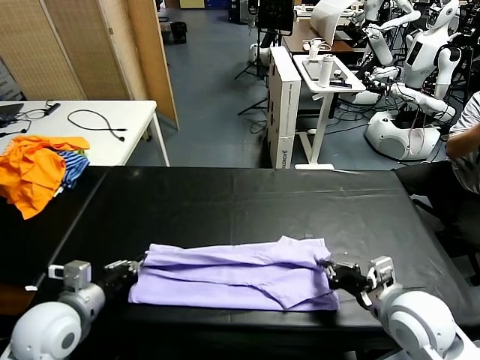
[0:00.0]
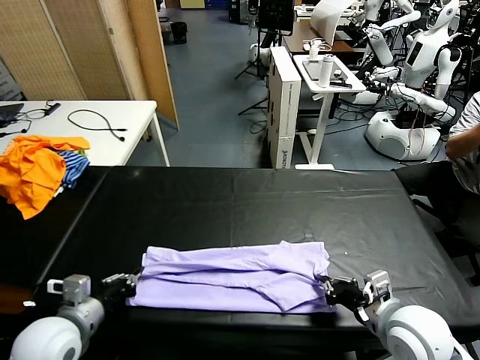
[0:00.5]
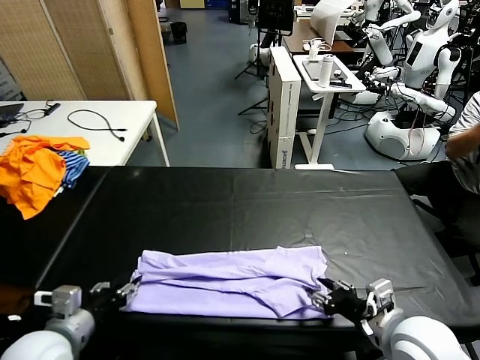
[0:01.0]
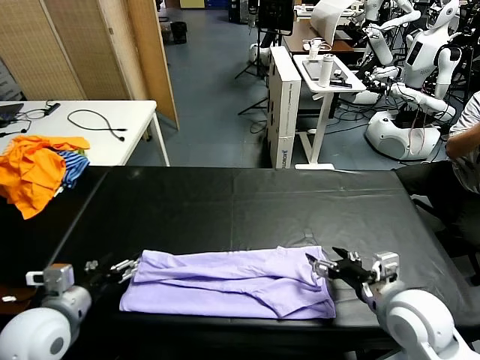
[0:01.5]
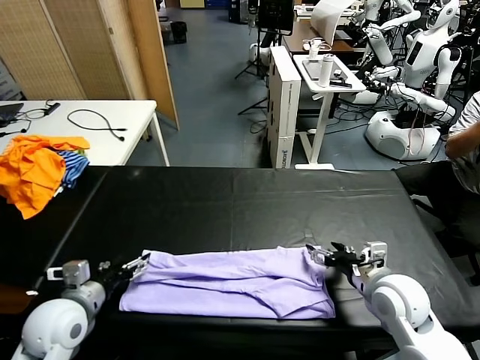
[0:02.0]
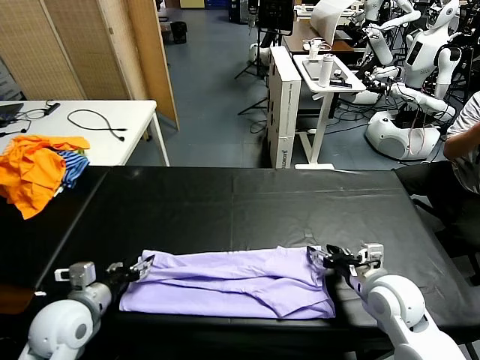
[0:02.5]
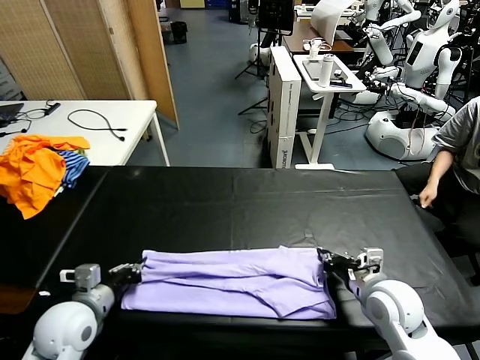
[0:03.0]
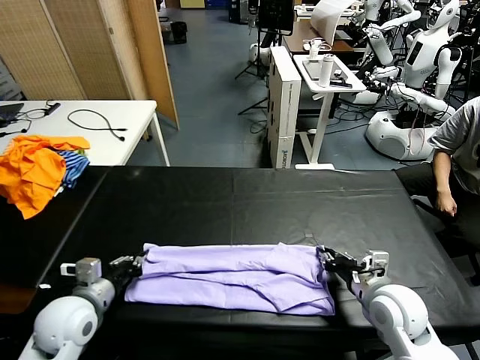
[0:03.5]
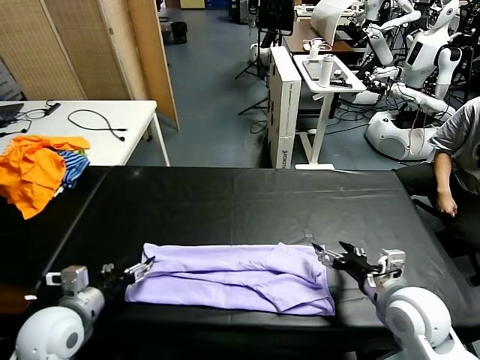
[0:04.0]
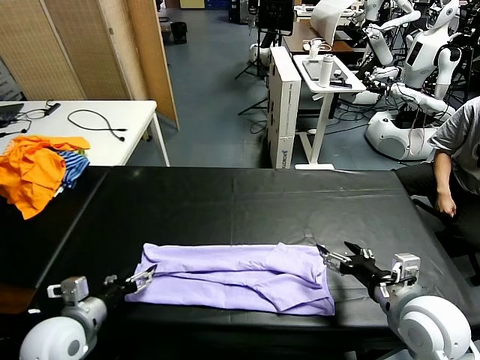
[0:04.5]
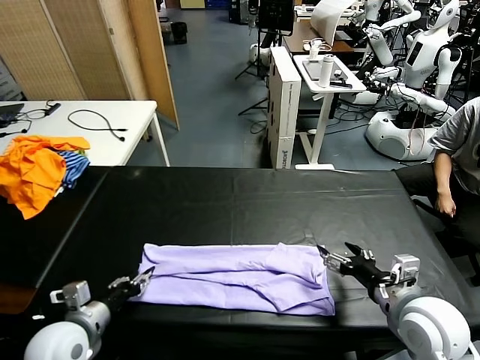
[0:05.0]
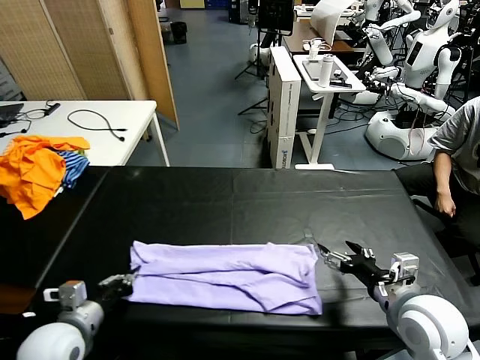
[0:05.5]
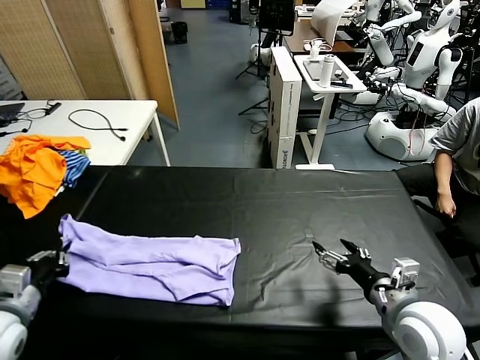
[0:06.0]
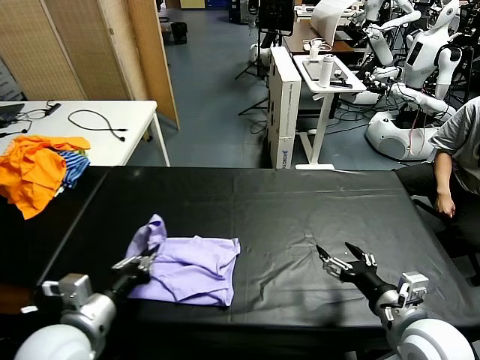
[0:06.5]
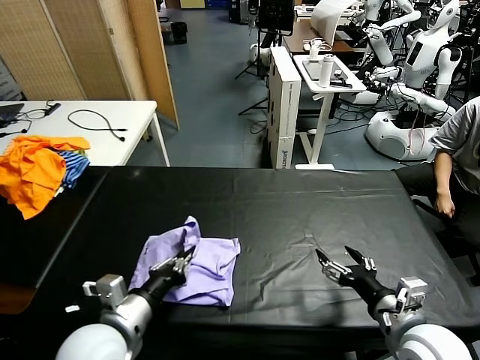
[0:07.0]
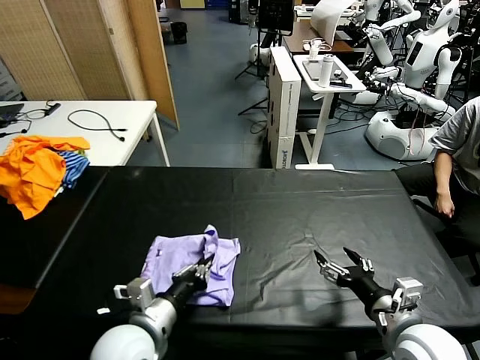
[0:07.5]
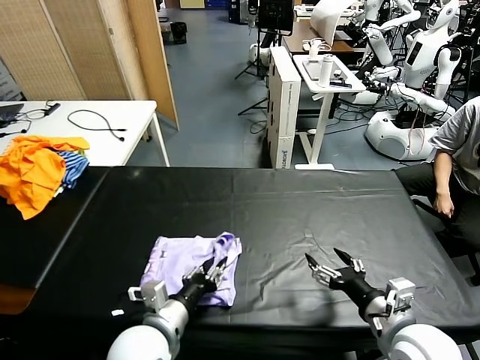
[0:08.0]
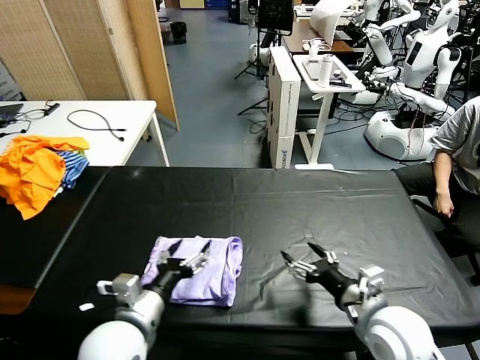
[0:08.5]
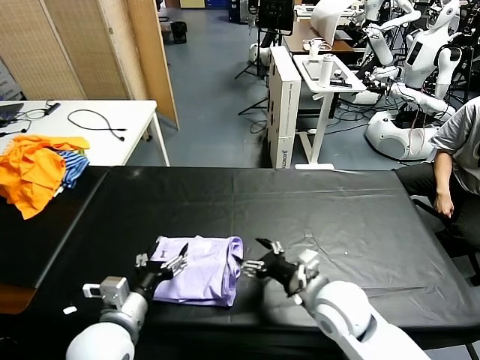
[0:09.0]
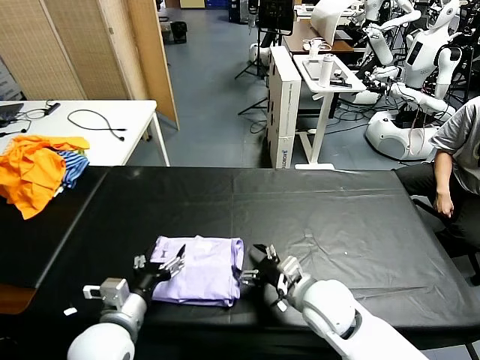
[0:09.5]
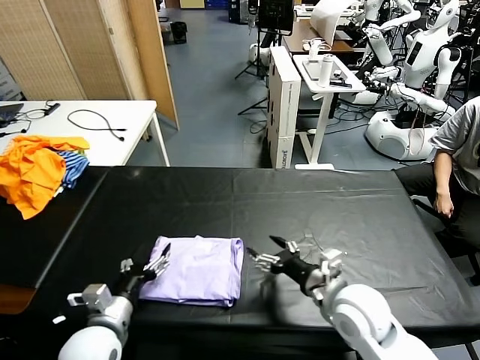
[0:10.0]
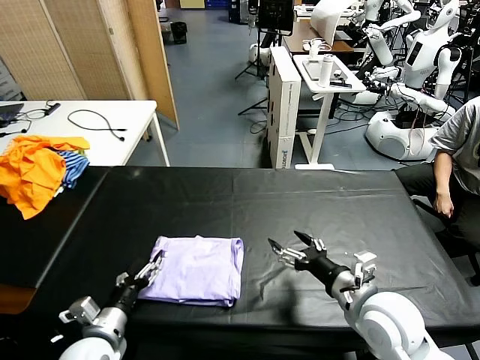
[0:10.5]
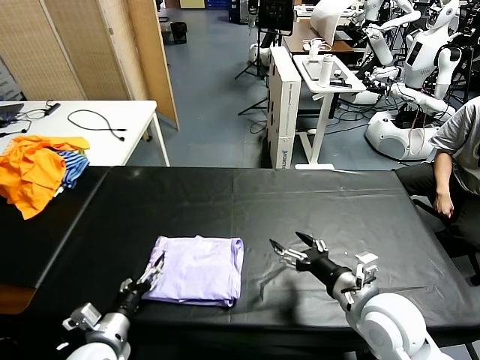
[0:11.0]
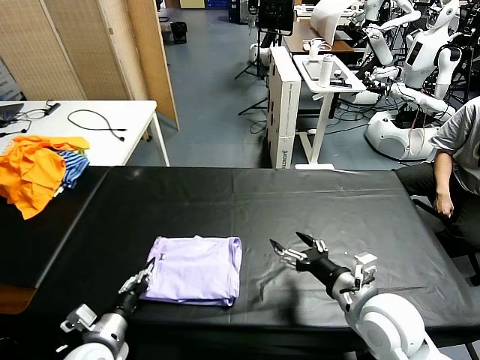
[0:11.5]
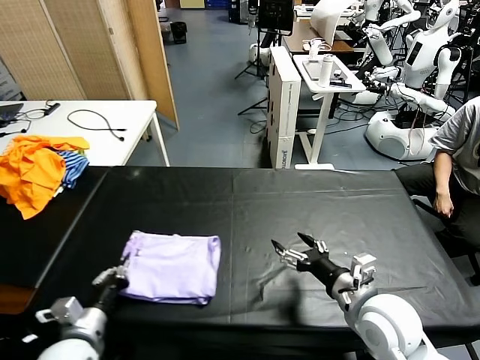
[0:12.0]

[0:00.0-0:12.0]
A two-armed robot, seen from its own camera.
Task of the whole recording: fold and organize the clothes.
Step, 0:00.0 to 0:03.5: use both grippers to drag the upper edge of the fabric backward and fold it over the lower edge.
Step, 0:04.0 to 0:05.0: use the left gripper to clamp the left edge of the fabric.
Step, 0:05.5 to 0:09.5: use the left gripper to drag the left edge of the fabric to the left and folds it over the right edge.
0:00.0 to 0:02.0: The right gripper travels forward by some 5 cm, and opens its fingers. The left gripper opens.
0:02.0 to 0:04.0: The left gripper closes, then opens again. The right gripper is displaced backward by some 5 cm, and closes, then reopens.
0:04.0 to 0:06.0: The left gripper is displaced to the left by some 5 cm, and closes.
0:06.0 to 0:08.0: The left gripper travels to the right by about 25 cm.
0:08.0 to 0:10.0: The left gripper goes some 10 cm to the left, and opens up. Meanwhile the right gripper goes about 10 cm forward and to the left.
0:10.0 to 0:12.0: The left gripper closes its fingers.

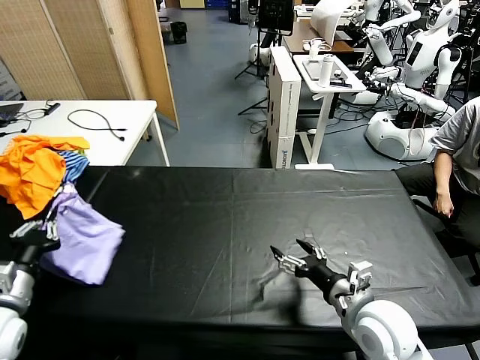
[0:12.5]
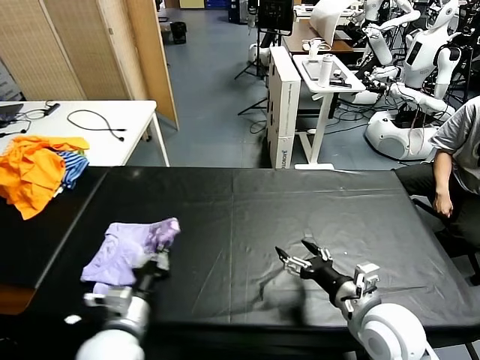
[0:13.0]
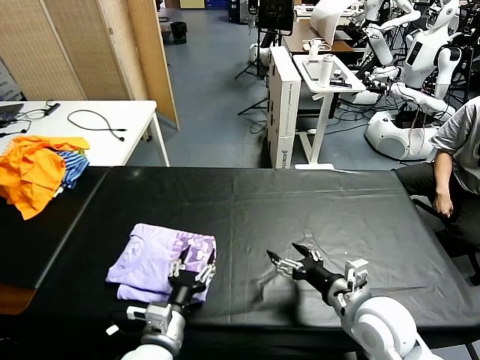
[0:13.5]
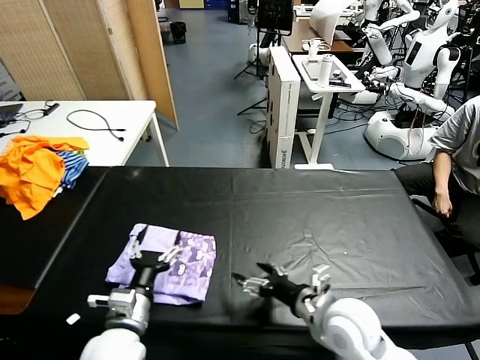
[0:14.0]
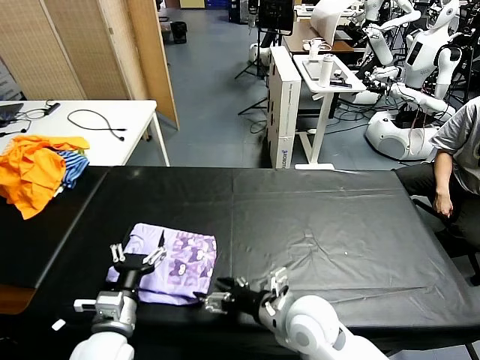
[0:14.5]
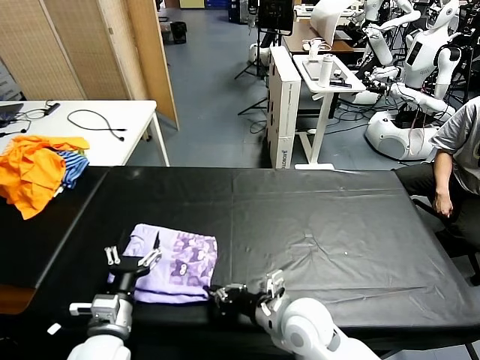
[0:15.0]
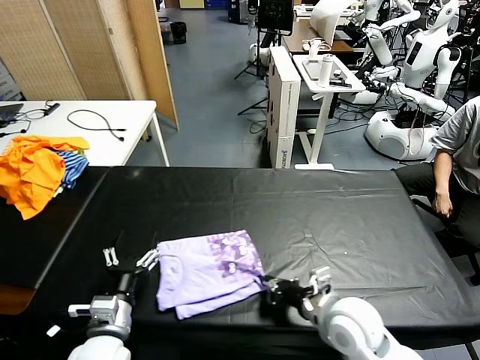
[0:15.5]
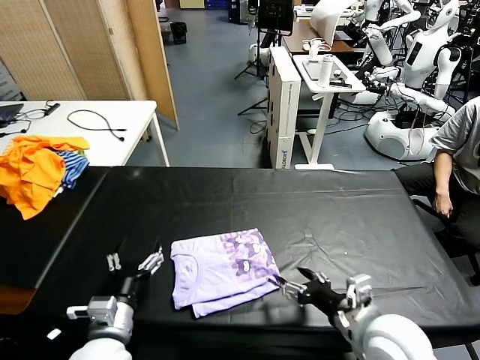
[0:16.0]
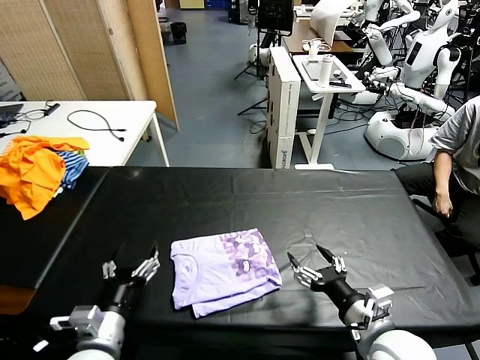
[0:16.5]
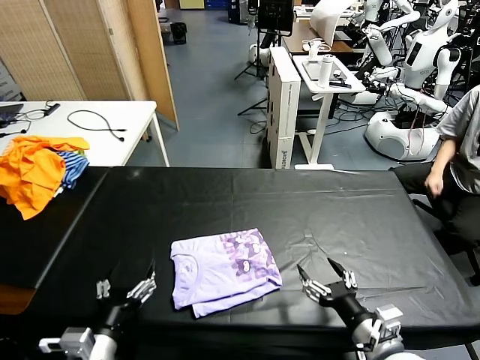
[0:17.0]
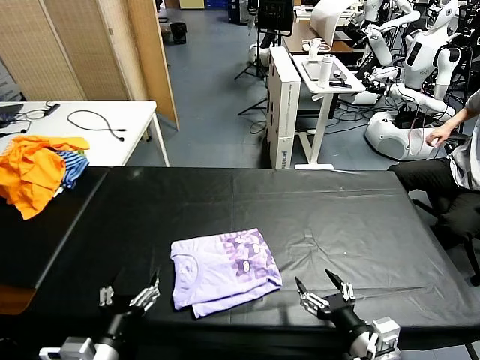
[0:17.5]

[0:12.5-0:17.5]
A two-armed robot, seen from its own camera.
Task of the whole recording: fold and organize the clothes.
Step, 0:14.0 to 0:16.0: Drag the clothes to the center of the table.
0:12.5 to 0:15.0: The left gripper shifts approximately 20 cm to the right and downward, and opens; the right gripper travels to the left by some 15 cm, and closes up.
0:15.0 to 0:17.5: The right gripper moves to the right and backward, some 20 cm, and opens its fingers. Meanwhile the left gripper travels backward by roughly 10 cm.
